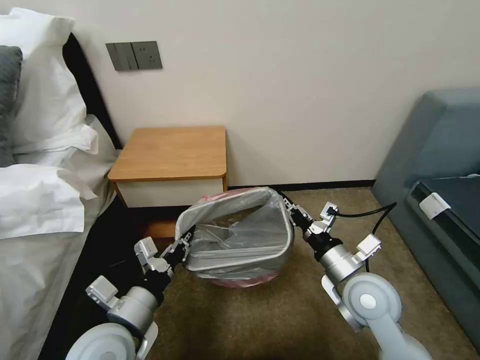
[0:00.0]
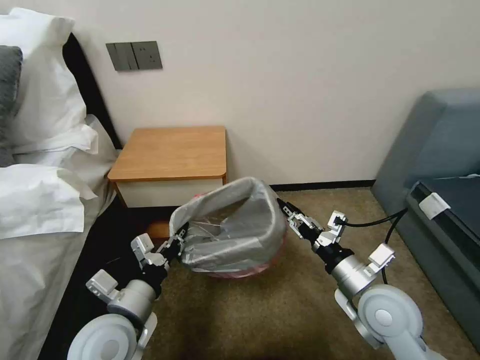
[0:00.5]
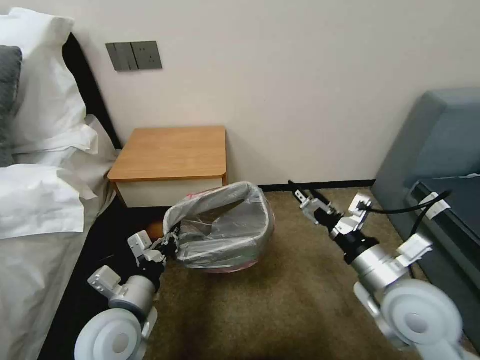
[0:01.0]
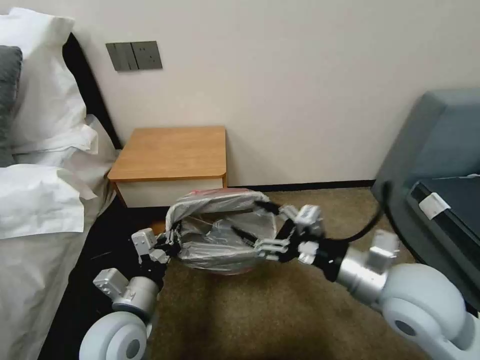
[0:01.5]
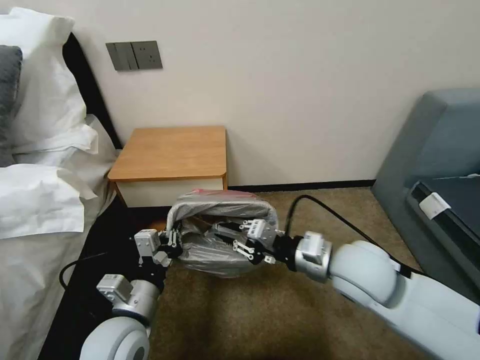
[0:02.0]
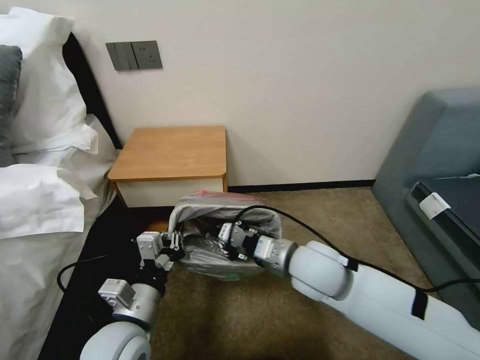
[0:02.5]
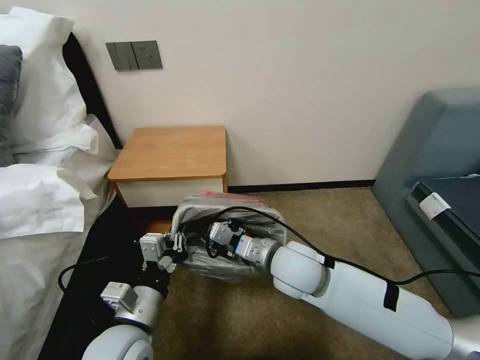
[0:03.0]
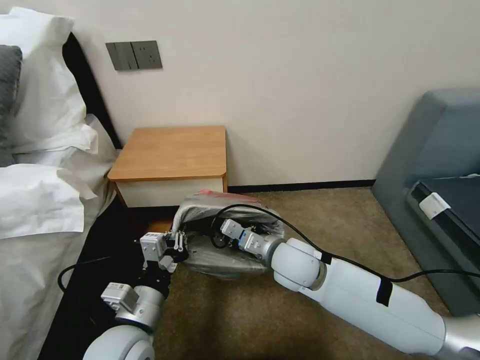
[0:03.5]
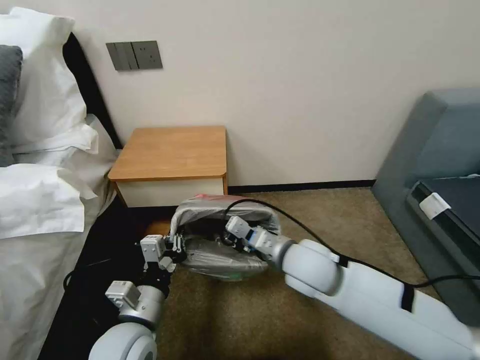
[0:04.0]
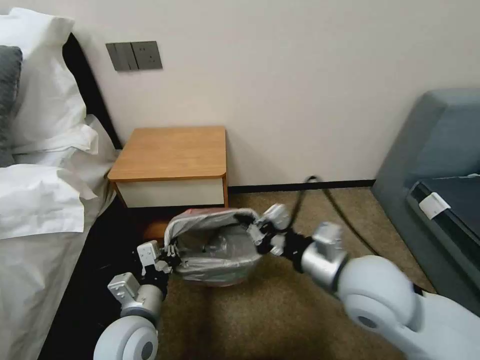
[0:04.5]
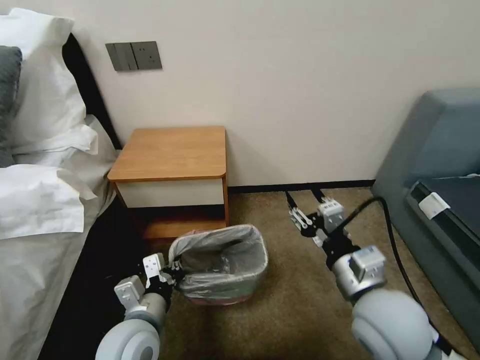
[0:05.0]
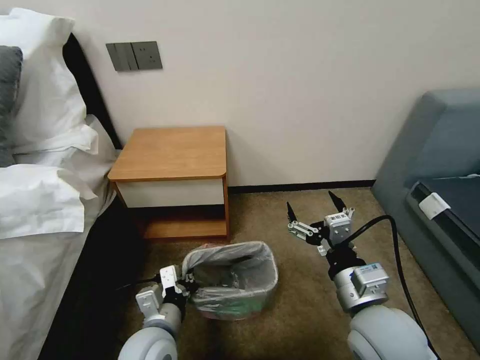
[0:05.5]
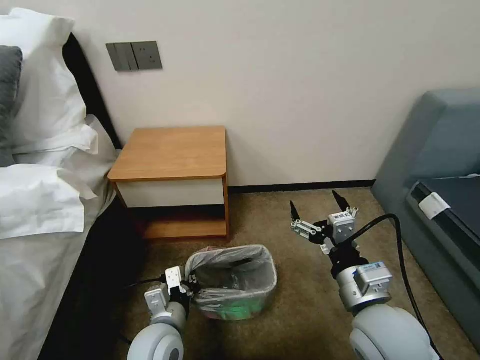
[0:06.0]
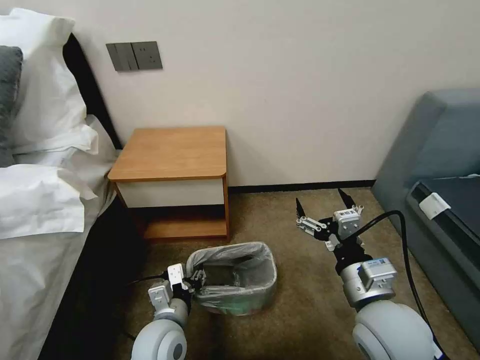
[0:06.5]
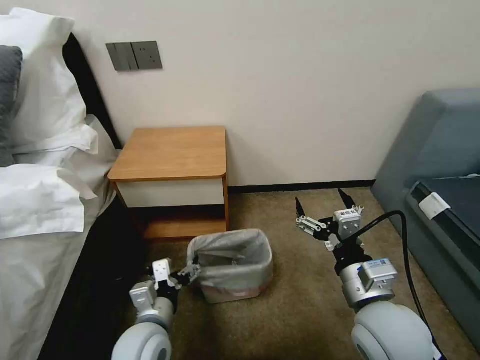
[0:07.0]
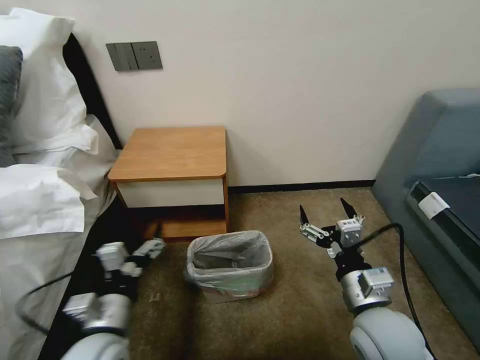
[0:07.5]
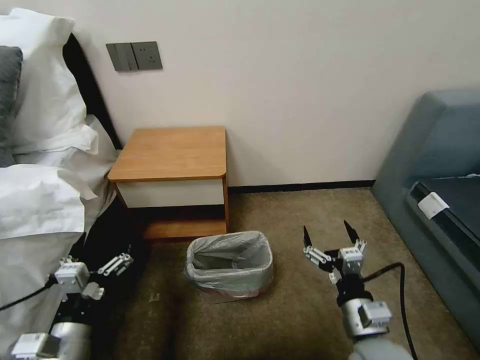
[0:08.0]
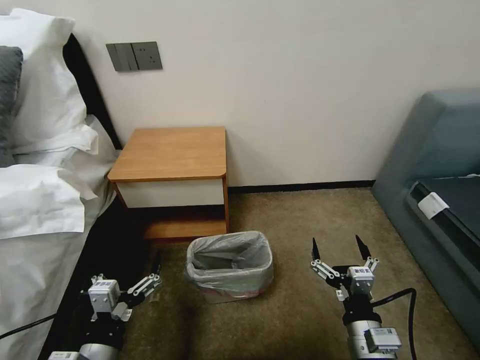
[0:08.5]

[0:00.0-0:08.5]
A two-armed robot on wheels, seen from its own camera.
Task of the whole recording: Pick up the garbage bag from the table and place it over the trash can.
0:00.0 to 0:02.0: The right gripper is displaced upward by roughly 10 cm, and opens and closes again.
0:02.0 to 0:04.0: The right gripper travels to the left by approximately 5 cm.
0:04.0 to 0:06.5: The right gripper is displaced backward and to the right by approximately 15 cm, and opens its fingers. Meanwhile the left gripper goes about 5 cm downward, and opens up.
0:06.5 to 0:08.5: The left gripper moves backward, to the left and upward, roughly 15 cm, and opens. The right gripper moves downward and backward, some 10 cm.

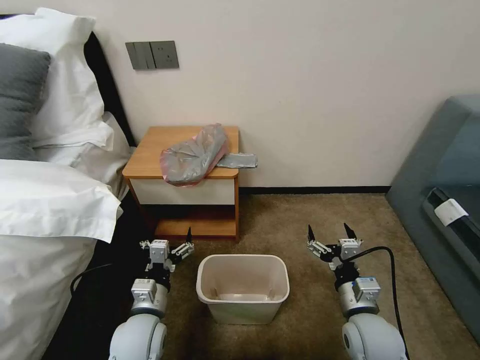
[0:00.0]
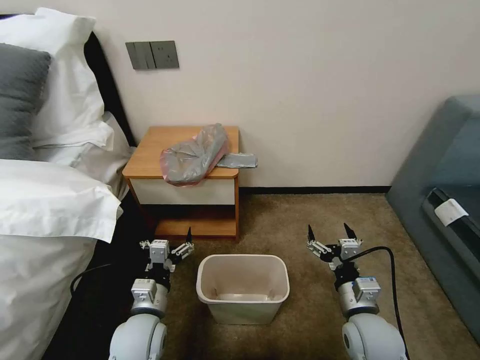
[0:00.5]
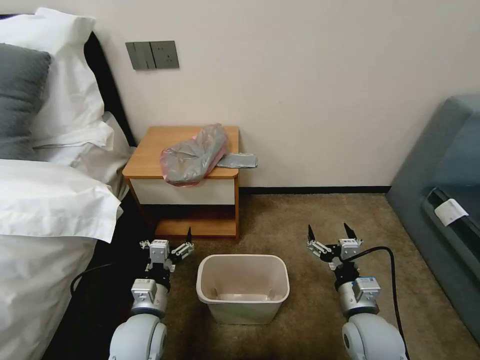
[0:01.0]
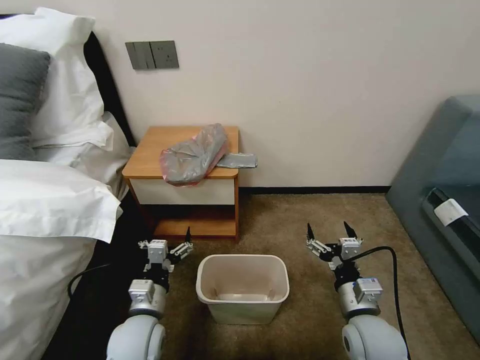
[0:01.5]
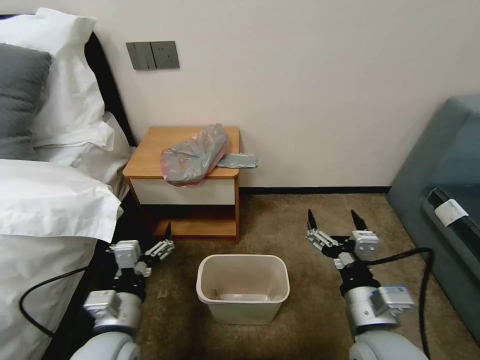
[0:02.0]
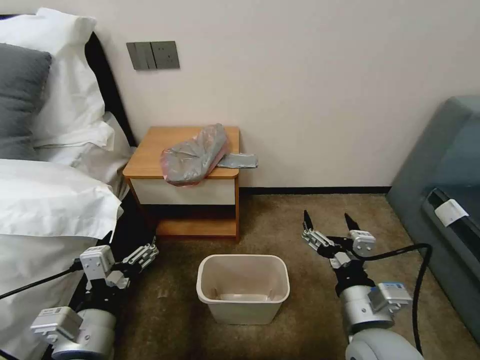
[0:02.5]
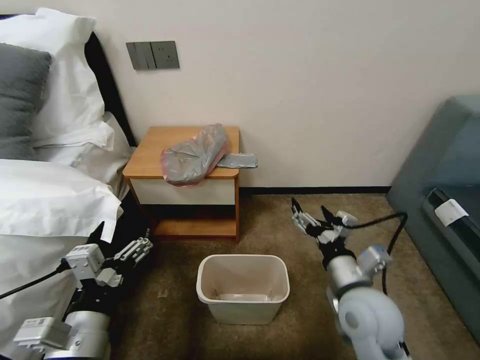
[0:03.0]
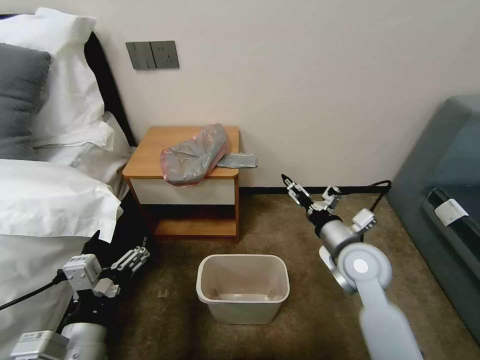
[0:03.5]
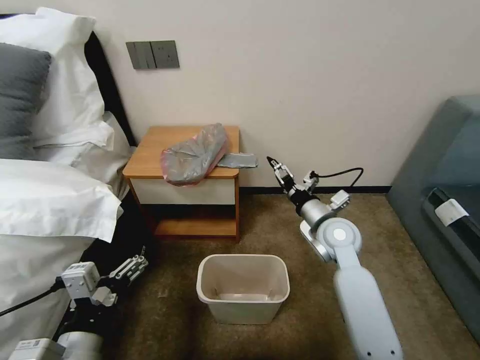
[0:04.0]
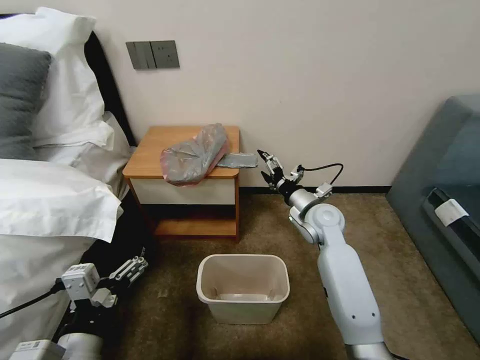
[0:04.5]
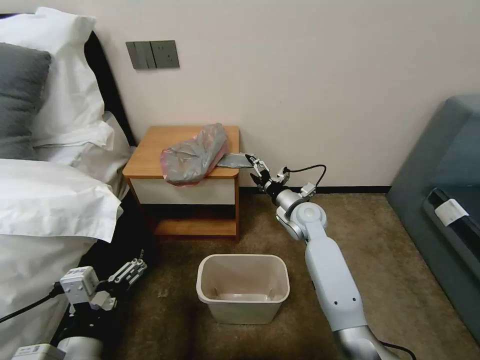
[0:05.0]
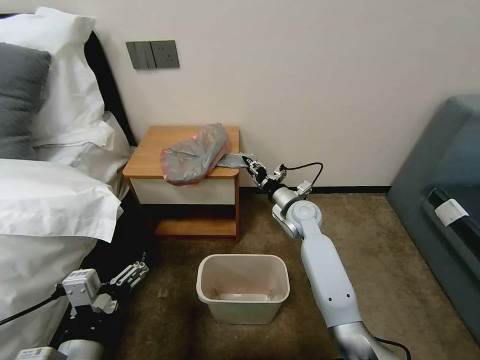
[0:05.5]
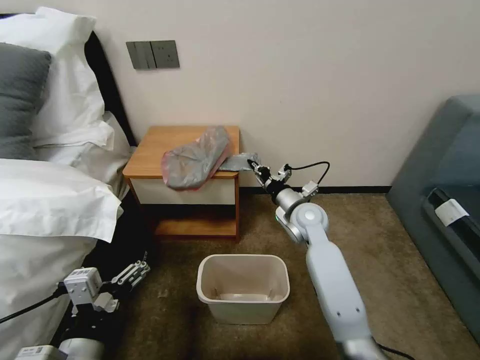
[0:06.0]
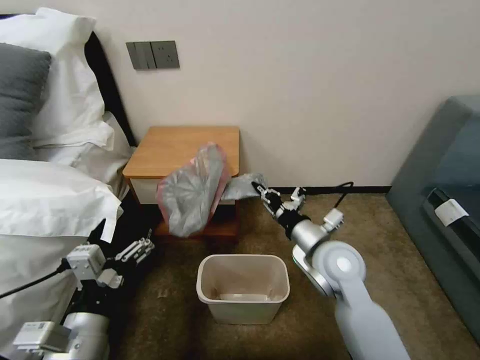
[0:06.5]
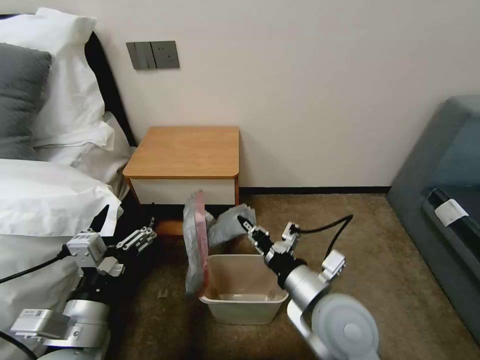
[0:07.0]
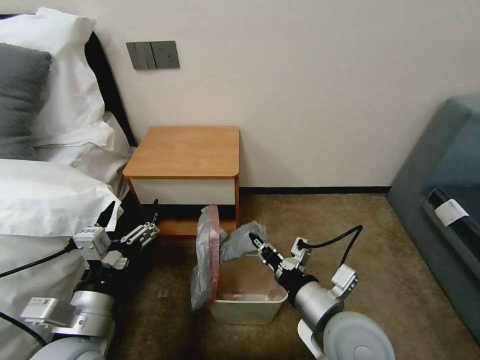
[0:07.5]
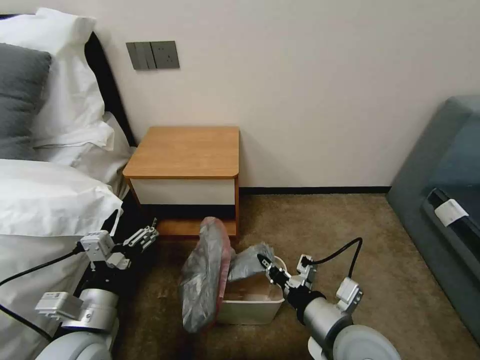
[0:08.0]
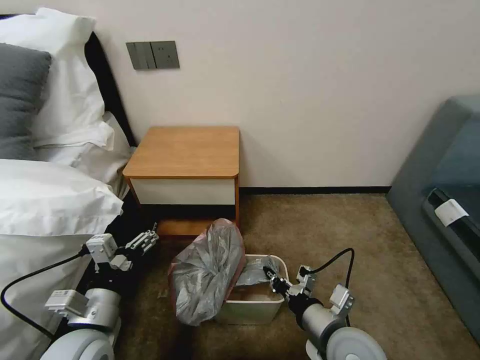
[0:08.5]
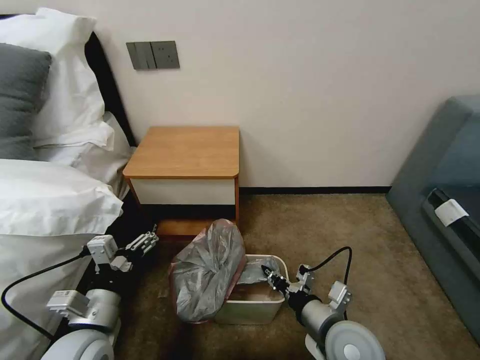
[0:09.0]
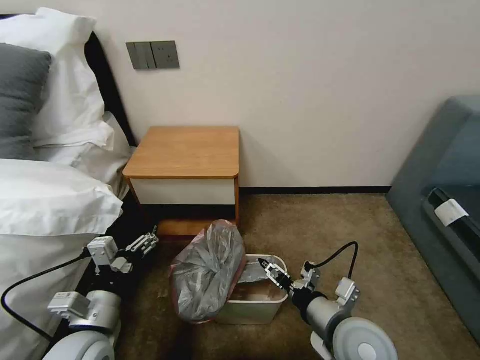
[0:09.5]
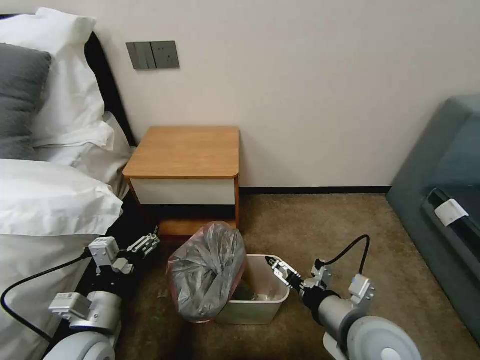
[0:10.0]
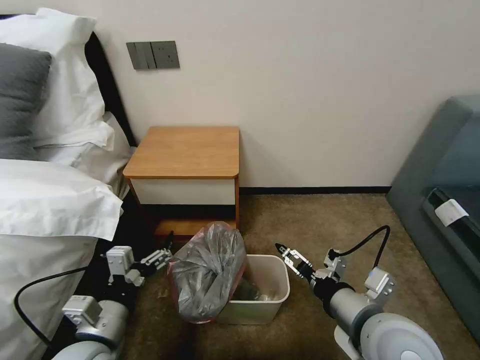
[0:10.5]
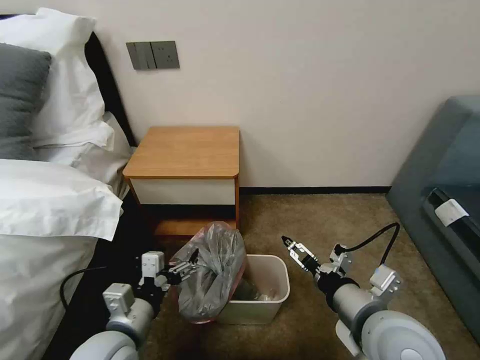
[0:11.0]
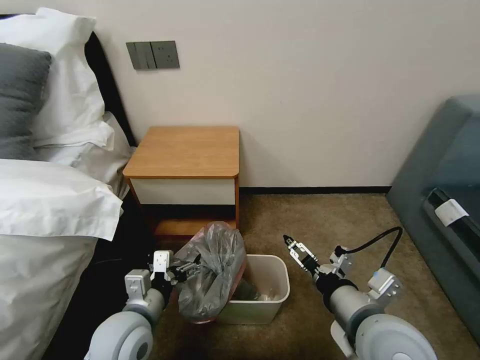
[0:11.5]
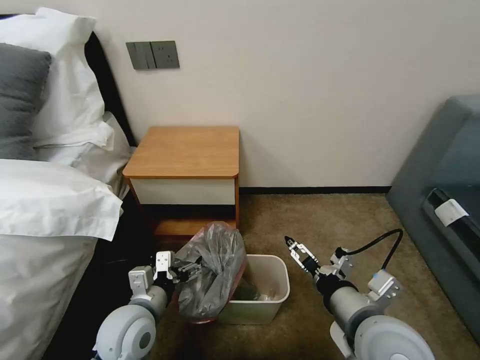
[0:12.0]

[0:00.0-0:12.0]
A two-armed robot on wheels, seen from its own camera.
Task of the whole recording: Pick up the garbage bag from the table and place it over the trash can.
0:02.0 to 0:04.0: The left gripper travels backward by about 5 cm. The right gripper shifts about 25 cm forward.
0:04.0 to 0:06.0: The right gripper goes about 5 cm forward, and closes up.
0:06.0 to 0:08.0: The right gripper moves backward, roughly 30 cm. Meanwhile the left gripper goes some 5 cm forward.
0:08.0 to 0:10.0: The right gripper opens.
0:10.0 to 0:12.0: The left gripper heads forward, covering about 5 cm.

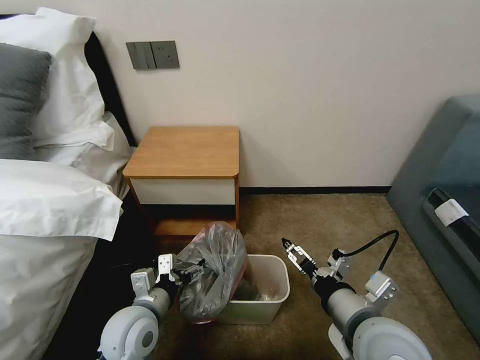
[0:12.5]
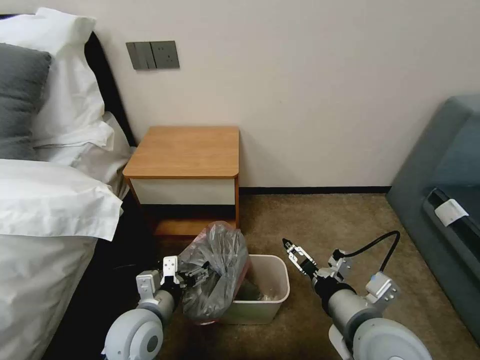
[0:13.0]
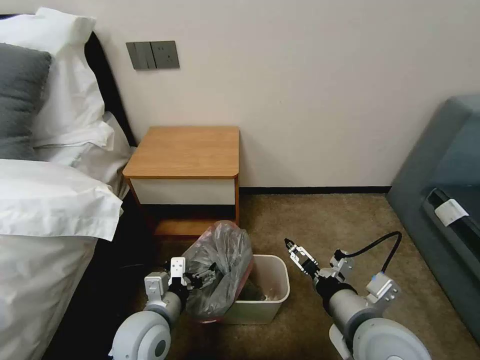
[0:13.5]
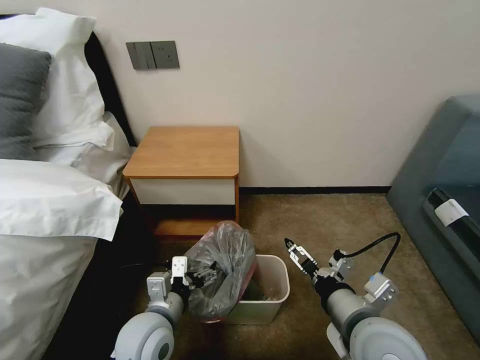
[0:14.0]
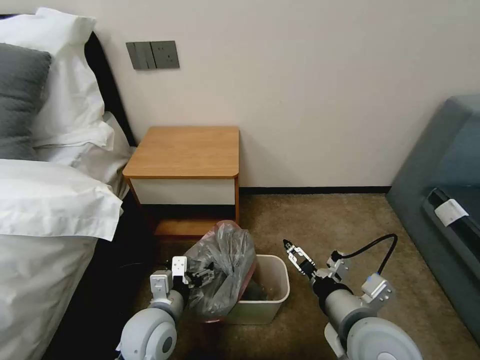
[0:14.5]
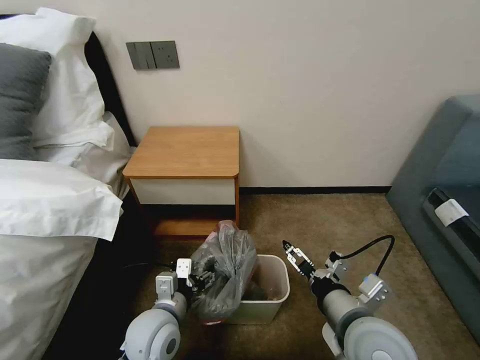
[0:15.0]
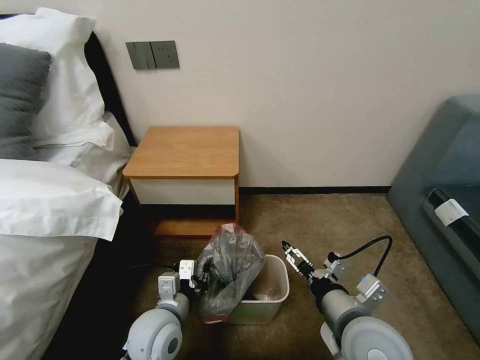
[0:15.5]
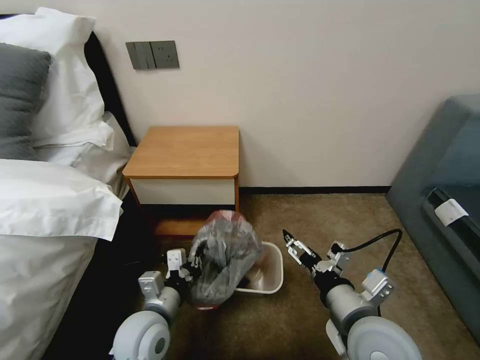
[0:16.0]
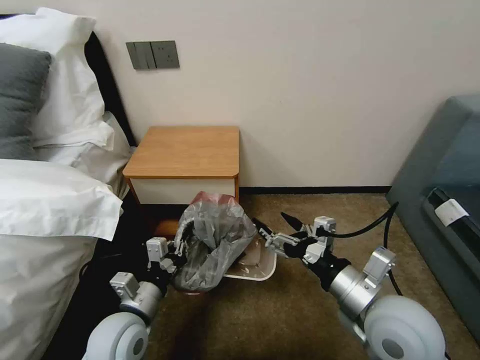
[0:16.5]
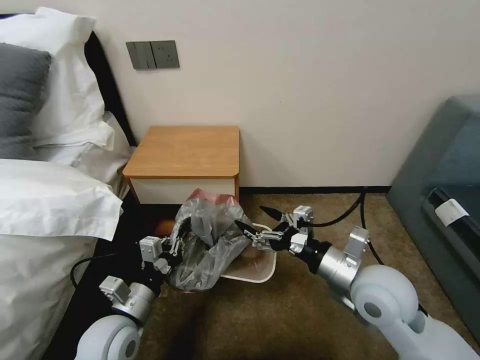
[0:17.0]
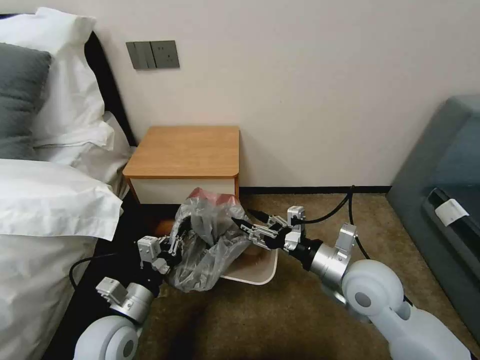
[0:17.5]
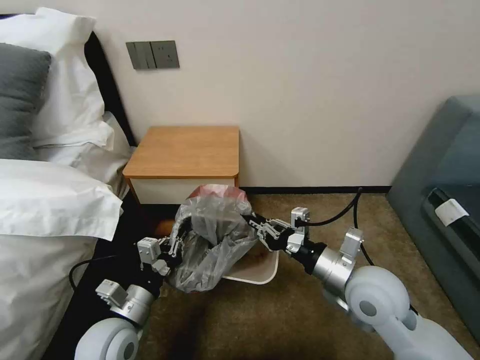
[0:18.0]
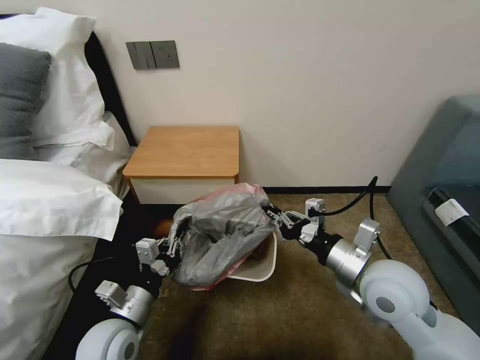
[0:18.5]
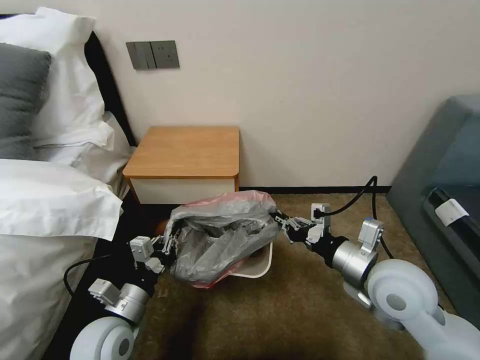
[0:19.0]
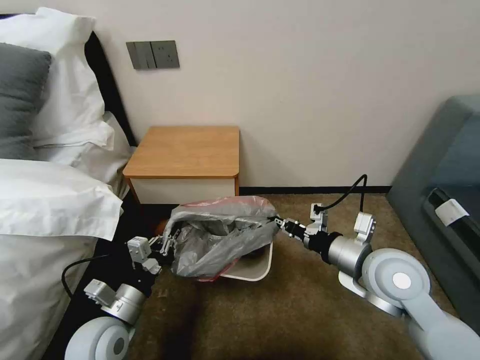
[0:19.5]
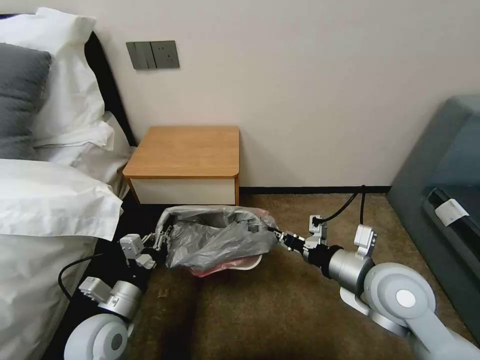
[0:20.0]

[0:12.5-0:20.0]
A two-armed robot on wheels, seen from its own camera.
Task of the whole recording: Pick up the garbage bag from the table and place it over the trash can.
0:12.5 to 0:14.5: The grippers make only small movements.
0:14.5 to 0:16.5: The left gripper goes about 5 cm to the left, and closes up.
0:16.5 to 0:18.0: The right gripper is displaced forward by about 5 cm, and closes.
